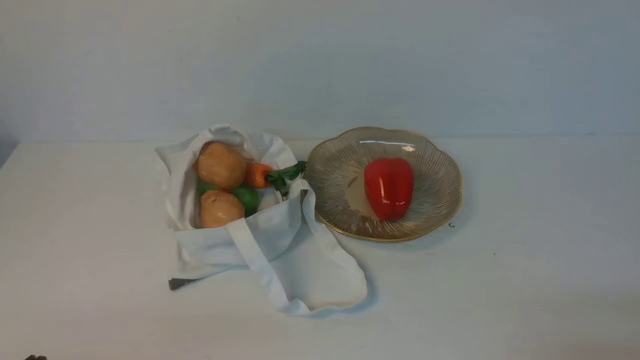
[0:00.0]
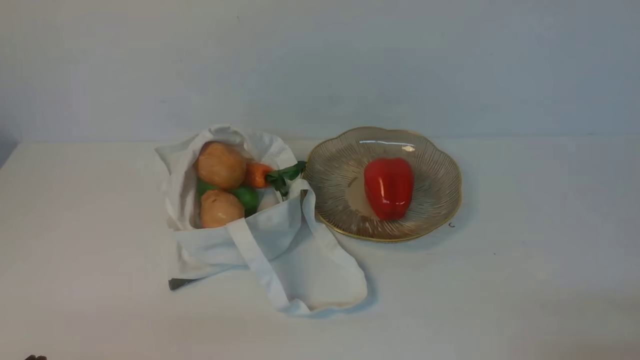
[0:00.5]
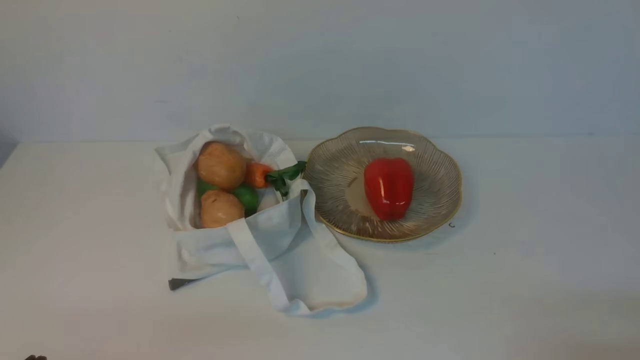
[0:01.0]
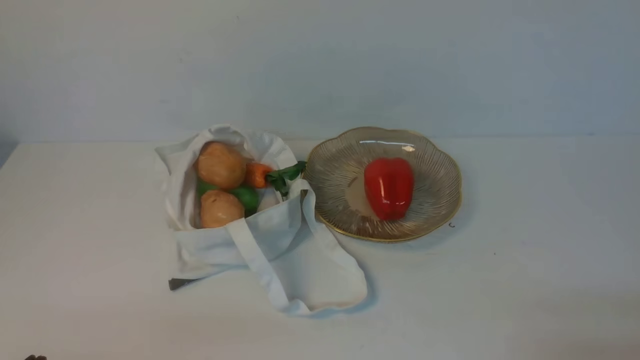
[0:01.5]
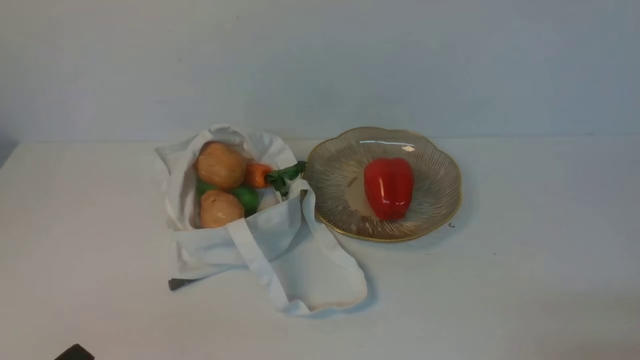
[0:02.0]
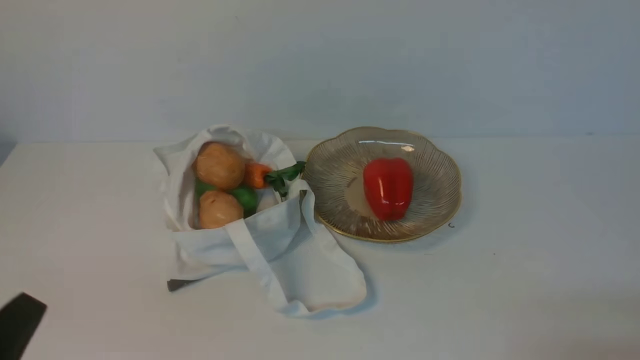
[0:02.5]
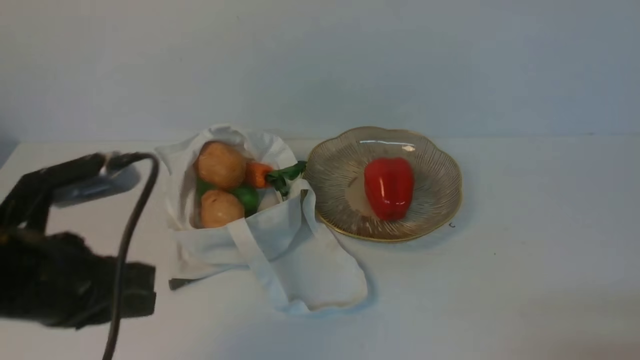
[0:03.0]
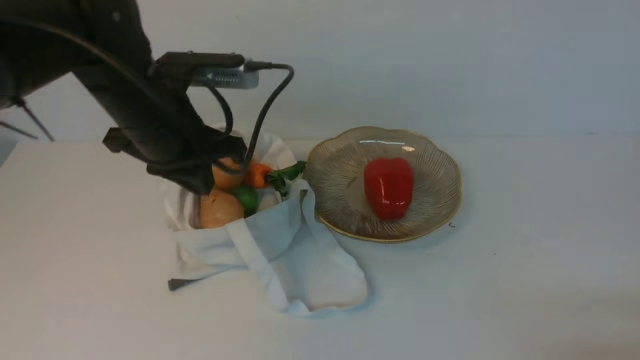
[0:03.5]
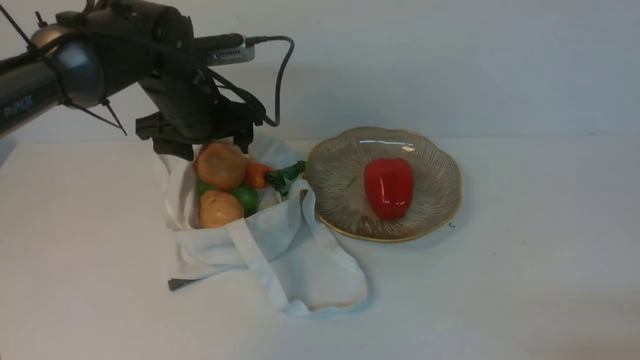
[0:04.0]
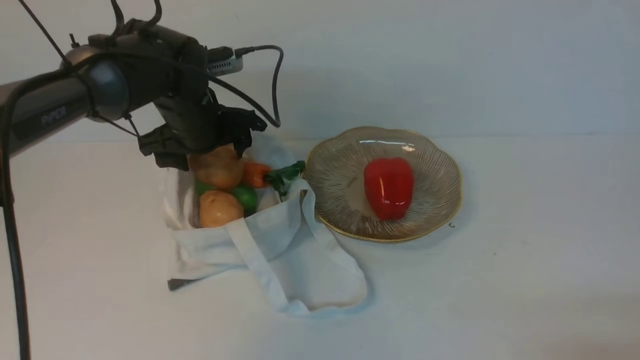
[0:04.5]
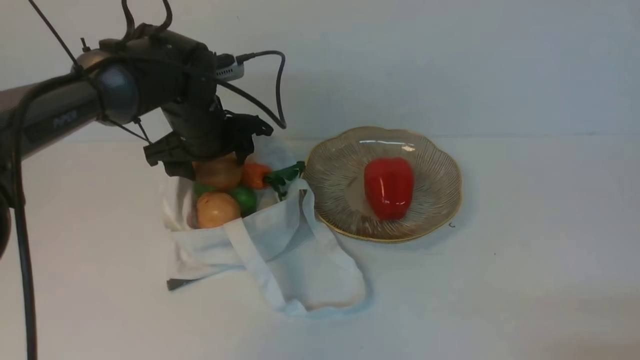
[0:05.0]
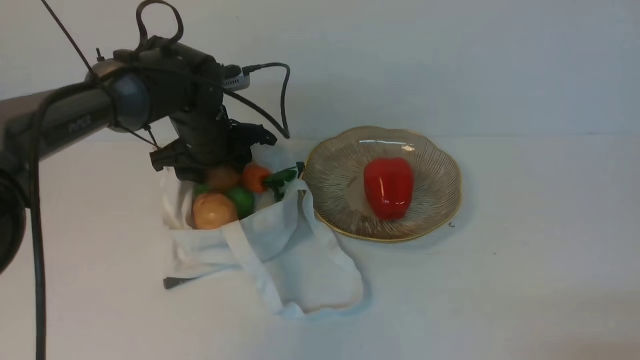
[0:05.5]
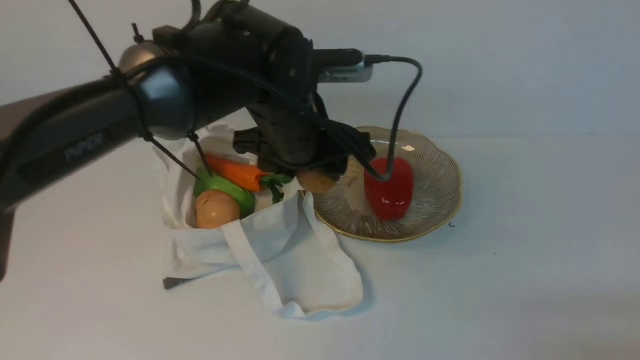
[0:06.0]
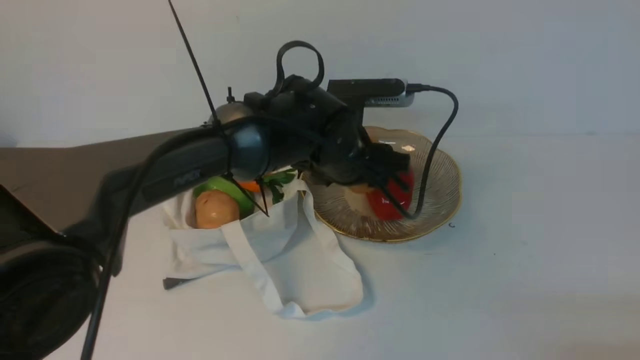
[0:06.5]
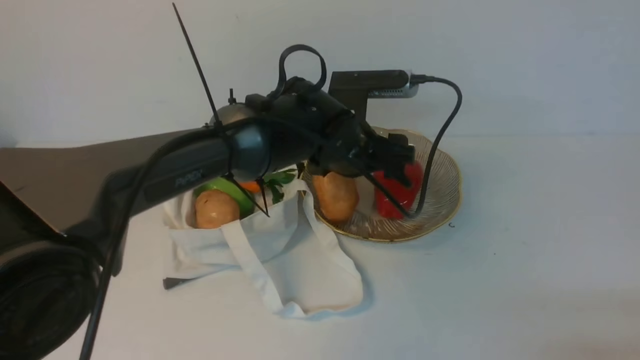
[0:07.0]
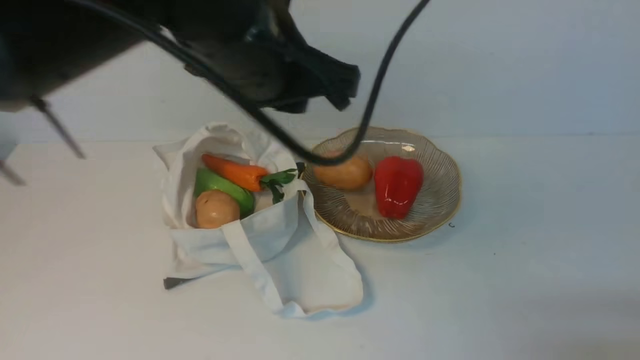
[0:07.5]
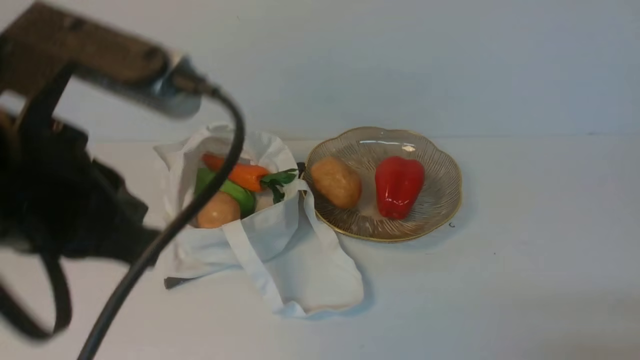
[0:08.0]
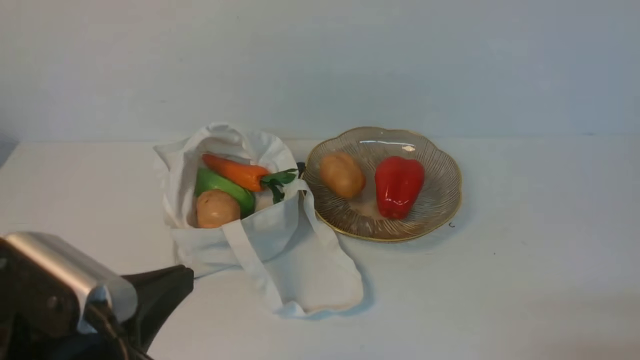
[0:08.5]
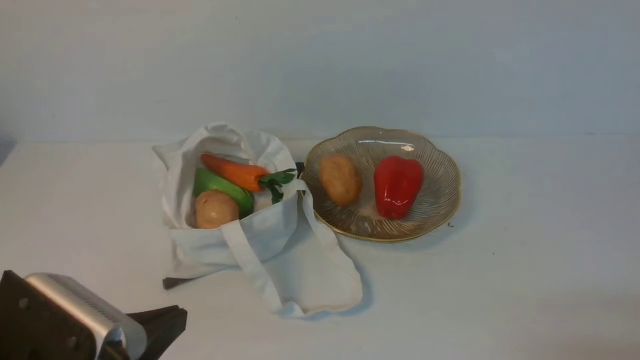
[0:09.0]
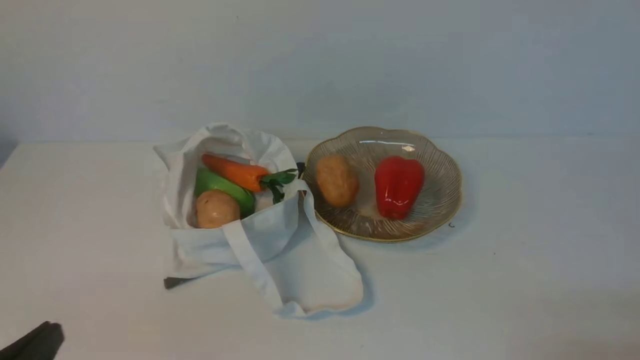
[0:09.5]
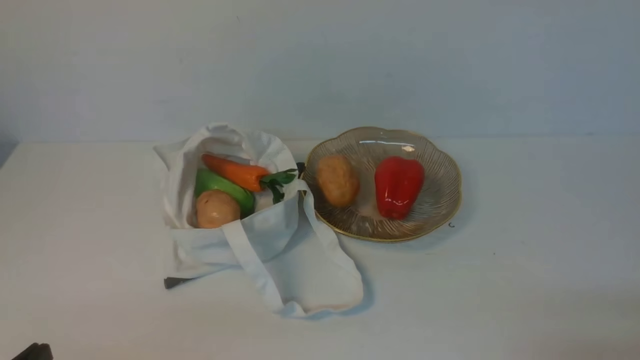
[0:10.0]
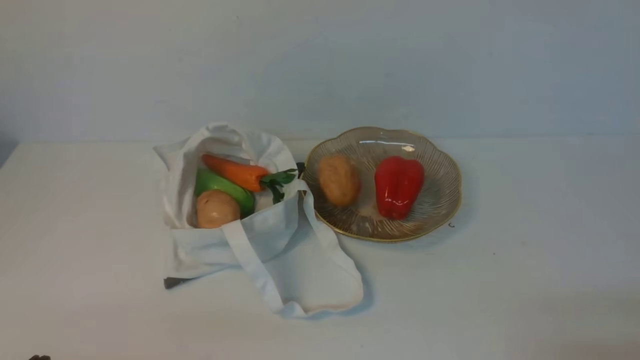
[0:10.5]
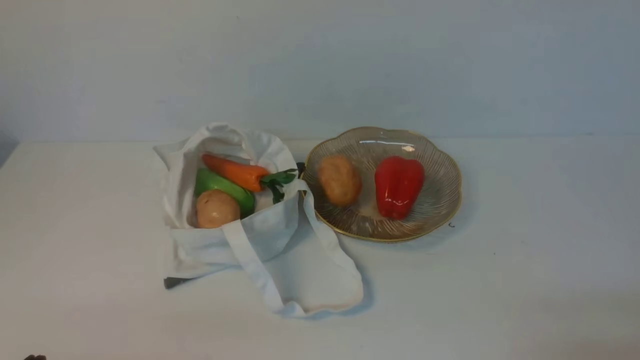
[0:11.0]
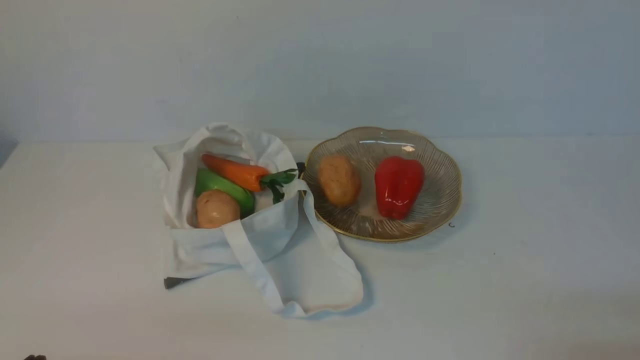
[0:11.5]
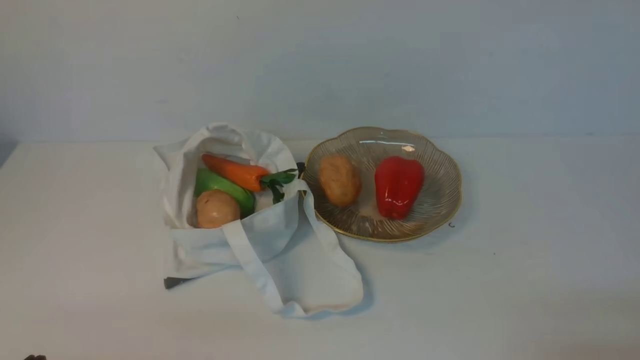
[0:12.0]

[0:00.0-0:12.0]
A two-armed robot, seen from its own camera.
Task of the whole recording: take vegetables from cloth bag on white table place on plate.
Step, 0:00.0 to 0:05.0: Grasp the potato with left gripper.
Step, 0:05.5 to 0:07.0: Place the potato on the plate with left gripper.
0:02.0 to 0:04.0: The left gripper travels forward by approximately 35 cm, and opens.
0:04.0 to 0:06.0: The left gripper is displaced to the right by roughly 10 cm.
0:06.0 to 0:08.0: The left gripper travels backward, upward and to the left by roughly 25 cm, and closes.
0:08.0 to 0:10.0: The left gripper moves downward, backward and to the left, about 30 cm.

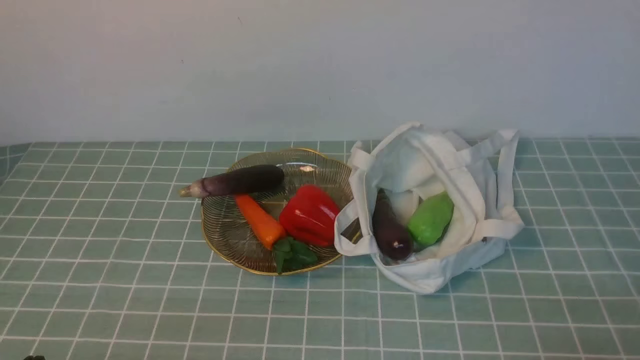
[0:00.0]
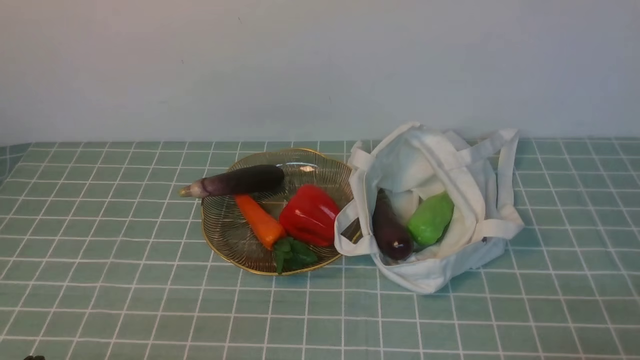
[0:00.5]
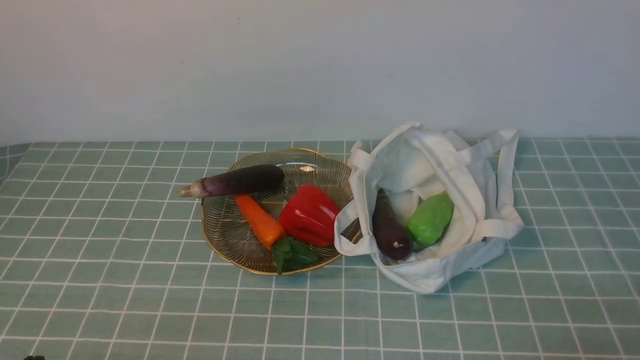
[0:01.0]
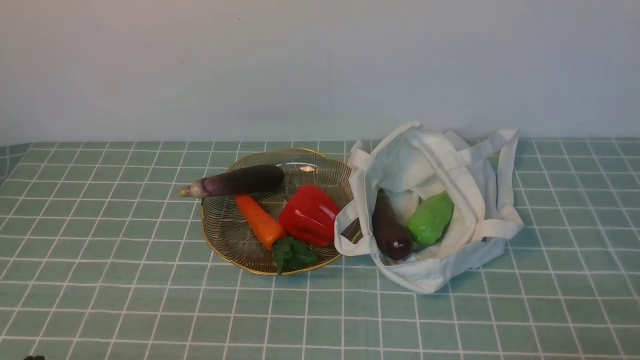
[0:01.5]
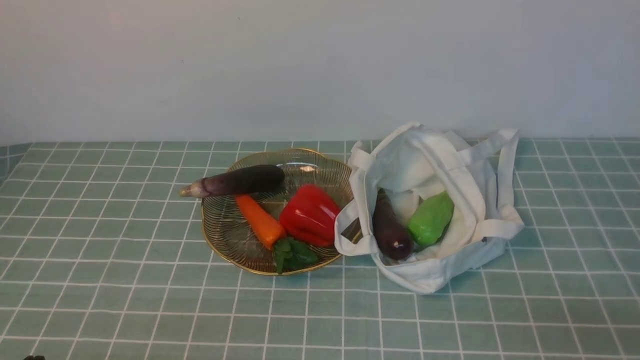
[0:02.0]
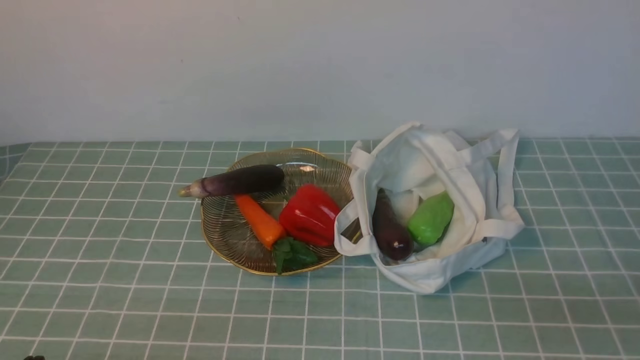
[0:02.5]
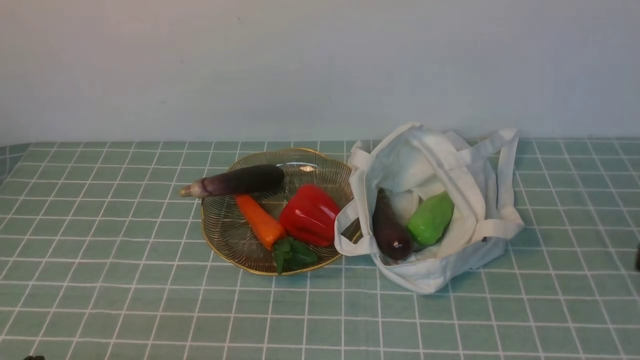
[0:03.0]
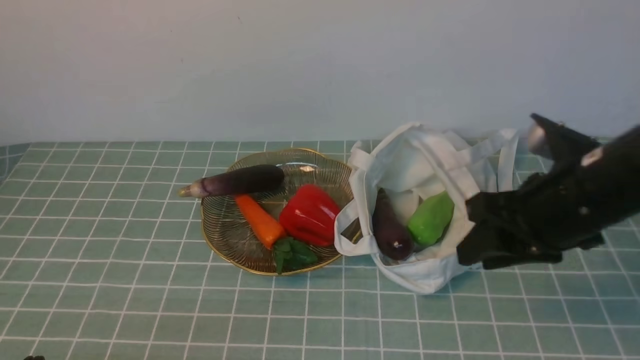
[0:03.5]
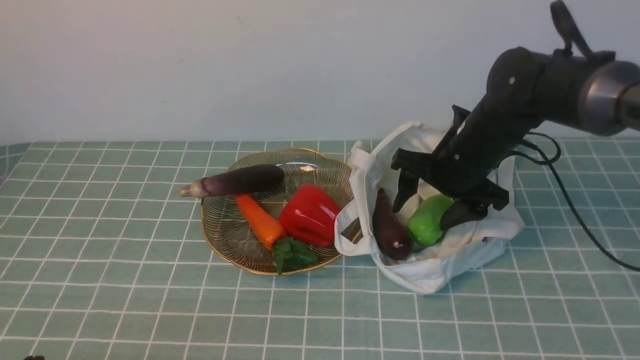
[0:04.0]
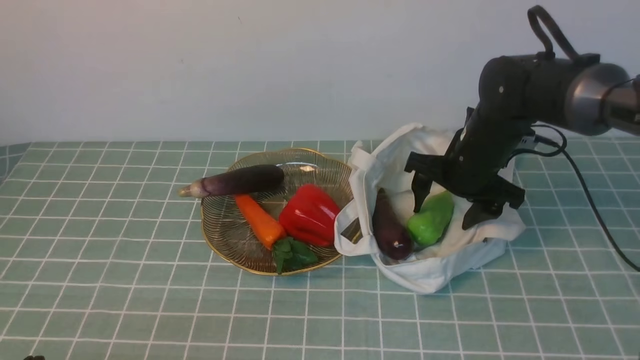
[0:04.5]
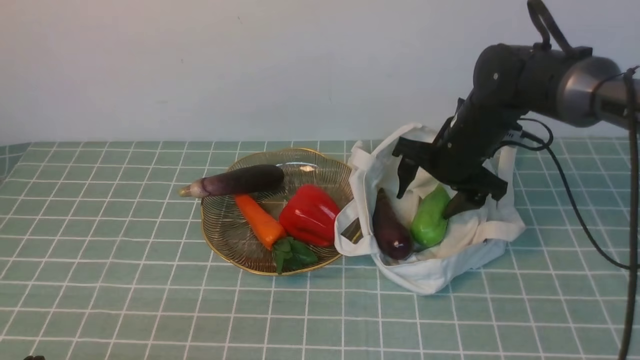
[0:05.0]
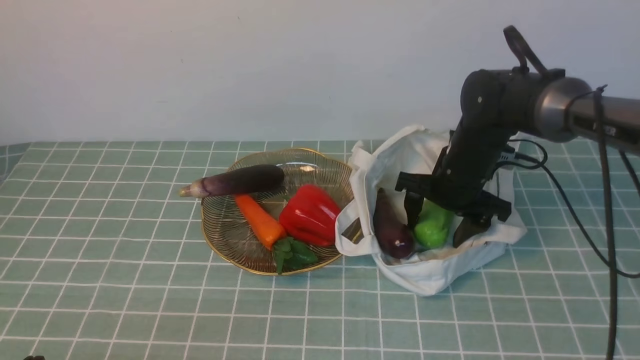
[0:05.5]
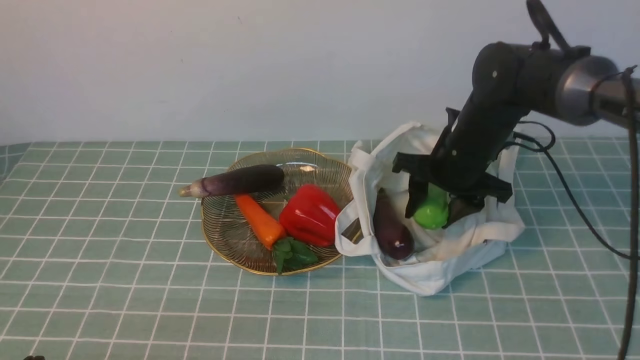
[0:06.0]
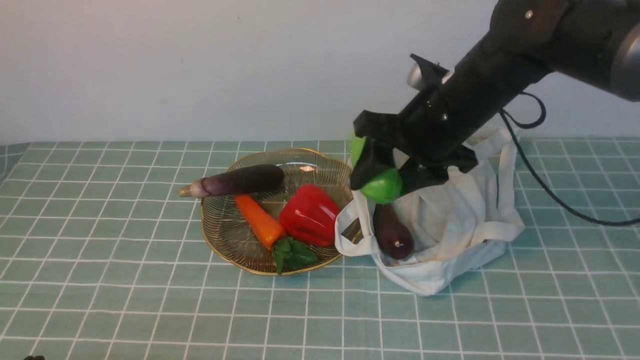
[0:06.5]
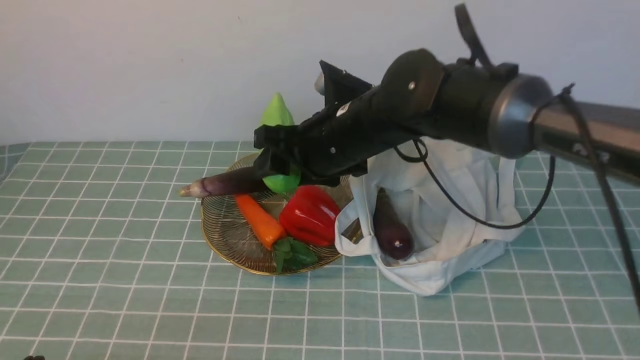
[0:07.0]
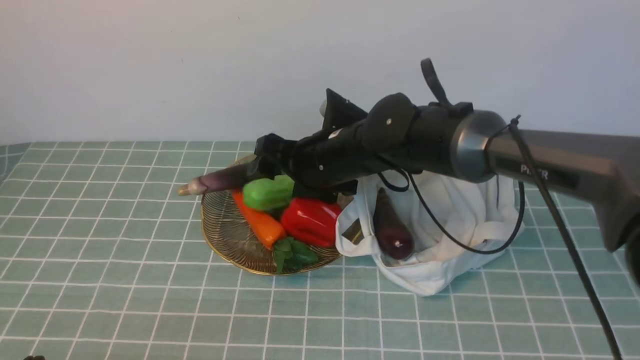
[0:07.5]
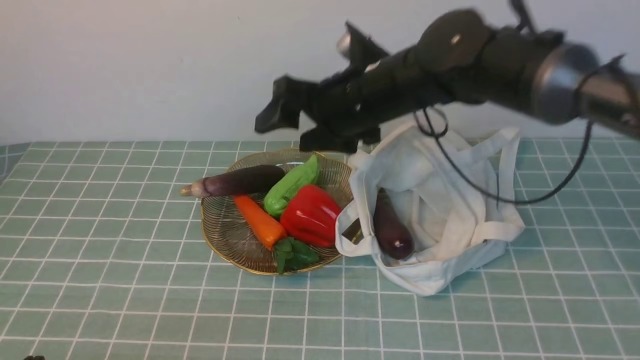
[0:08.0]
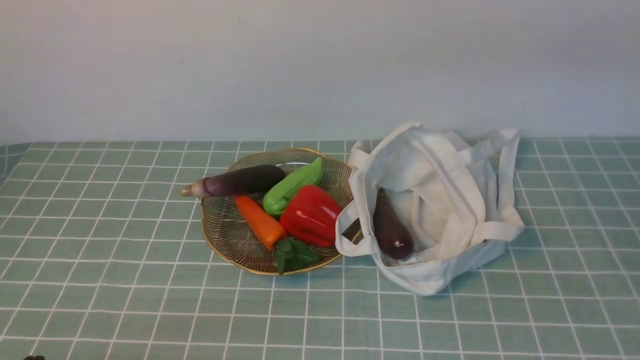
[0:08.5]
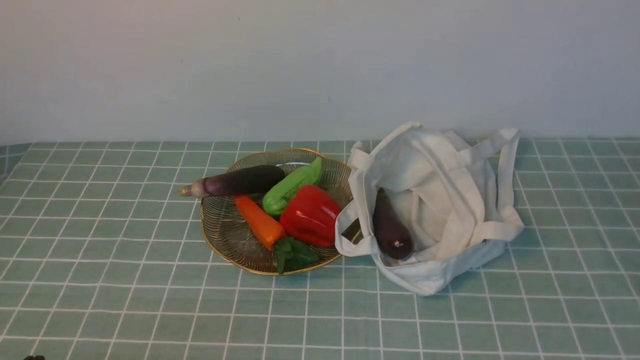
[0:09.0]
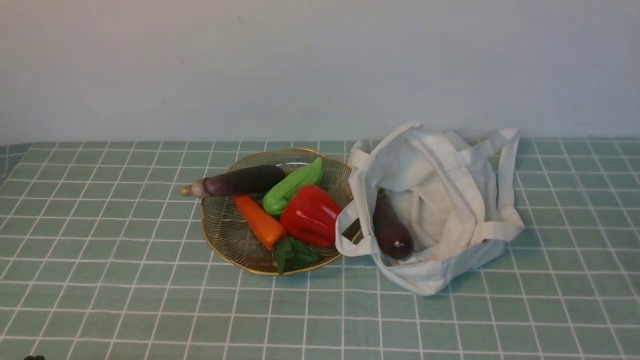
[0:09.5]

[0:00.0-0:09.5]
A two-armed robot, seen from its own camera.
Task of the whole recording: take vegetables from cloth bag on blue coffee tablecloth place on plate.
Step, 0:00.0 to 0:05.5: Grasp the bitter melon with right gripper.
Step, 0:06.0 to 0:08.0: Place the bitter melon on the plate with right gripper.
0:02.0 to 0:04.0: The right gripper travels forward and to the left by about 35 cm, and opens its fingers.
0:04.0 to 0:05.5: The grippers move only a little.
0:05.5 to 0:07.5: The right gripper shifts approximately 15 cm to the left.
0:07.5 to 0:09.5: The right gripper moves backward and to the right, about 40 cm, and closes up.
